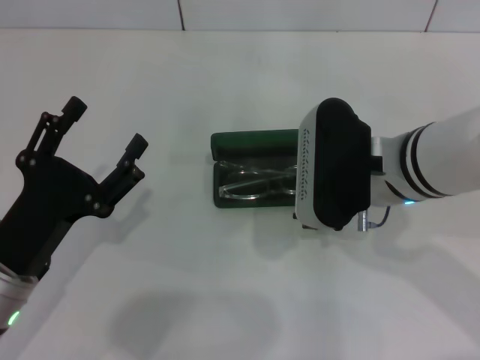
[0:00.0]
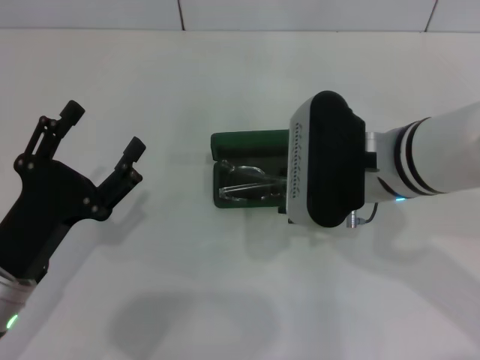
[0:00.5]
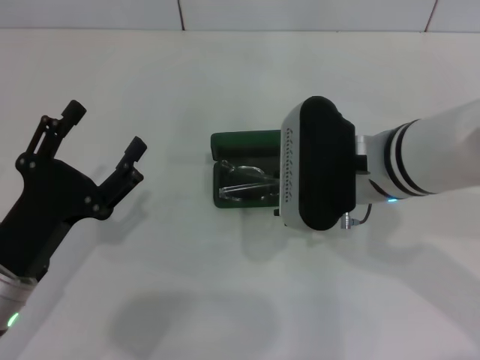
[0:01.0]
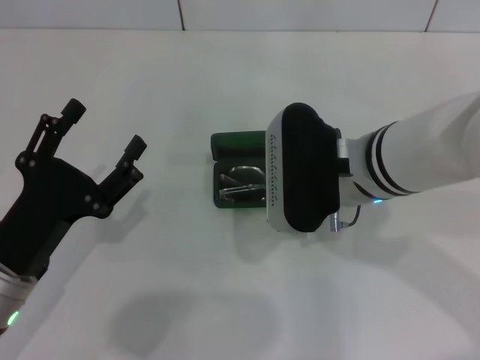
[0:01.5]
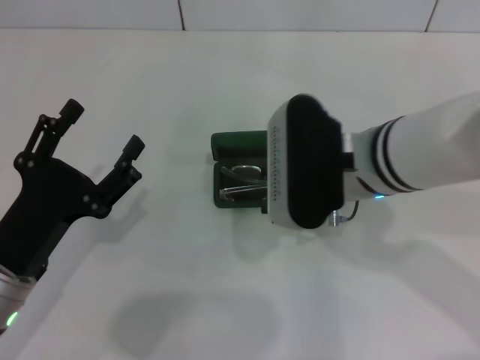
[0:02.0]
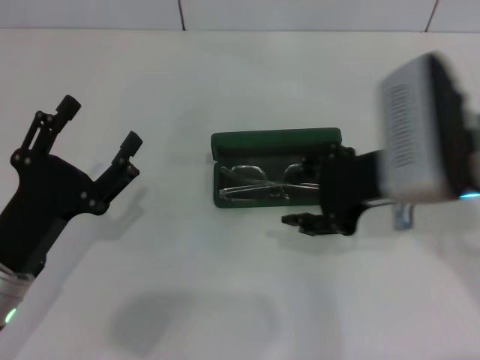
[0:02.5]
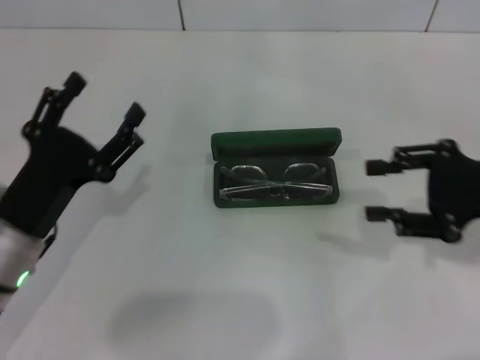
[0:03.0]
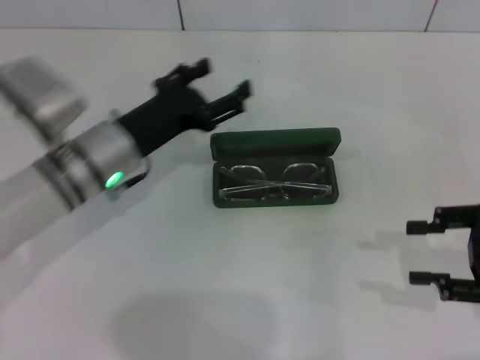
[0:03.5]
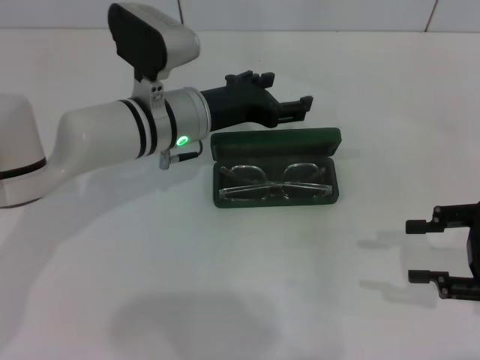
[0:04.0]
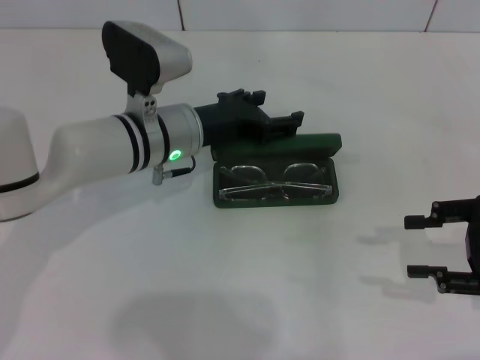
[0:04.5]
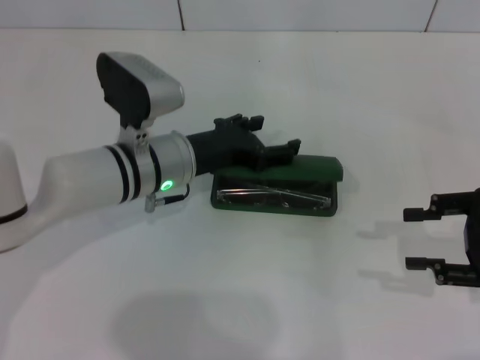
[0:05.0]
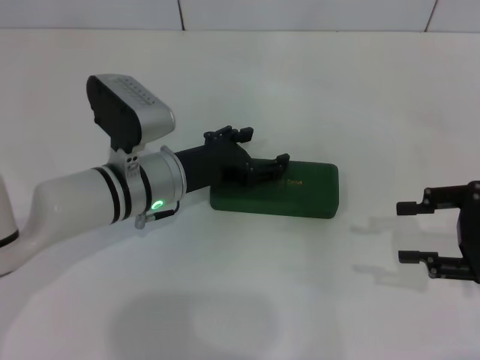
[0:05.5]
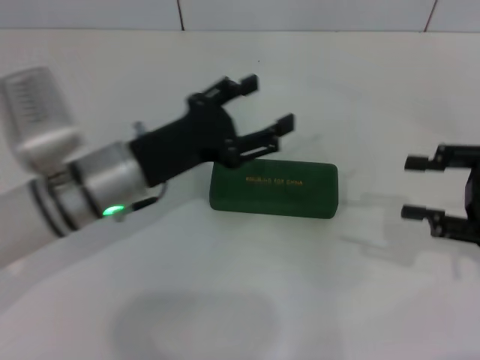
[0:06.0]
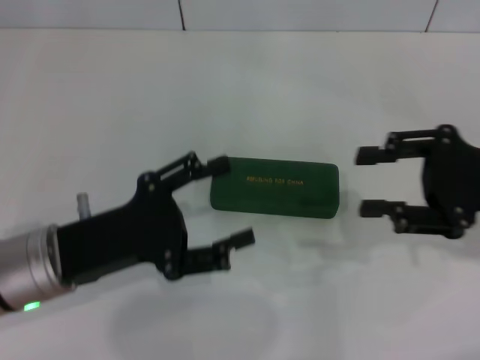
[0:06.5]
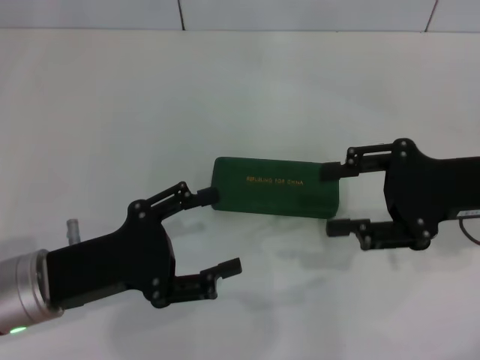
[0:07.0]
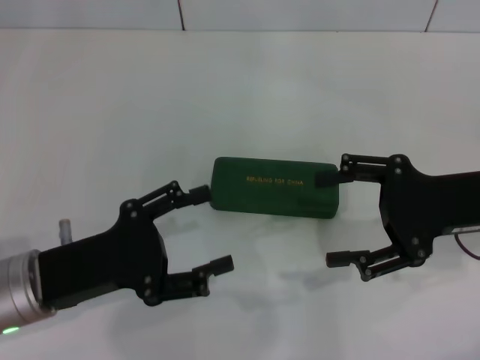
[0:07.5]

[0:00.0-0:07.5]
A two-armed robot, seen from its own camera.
Step, 0.0 to 5.0 s: Close the glasses case with your left hand.
0.0 to 2.0 s: The grippers make only small movements.
2.0 to 4.0 s: The right gripper is displaced to the right by some 25 cm. Meanwhile the left gripper moves forward and to the right, some 25 cm.
4.0 to 5.5 s: The left gripper moves roughly 5 cm.
5.5 to 7.5 s: The left gripper moves backward and to the left, some 15 cm. Meanwhile the right gripper moves to the left, roughly 5 cm, and opens up.

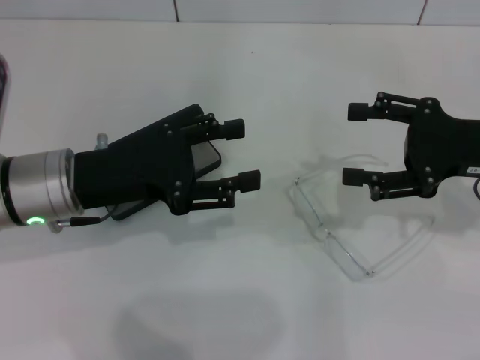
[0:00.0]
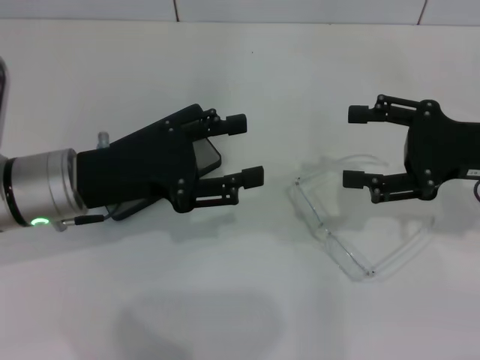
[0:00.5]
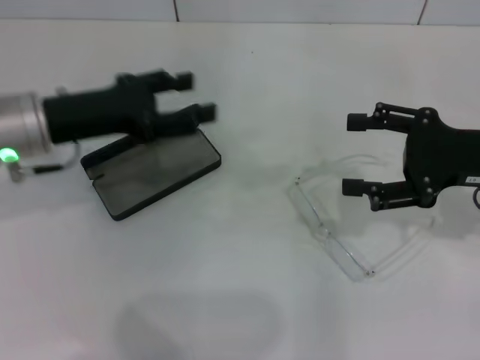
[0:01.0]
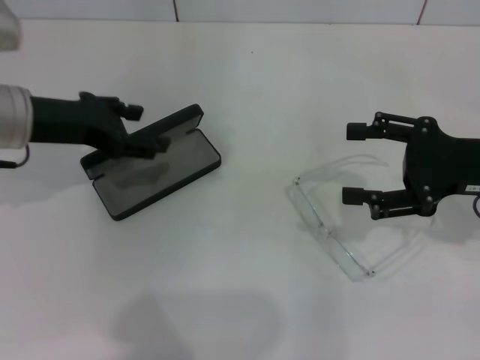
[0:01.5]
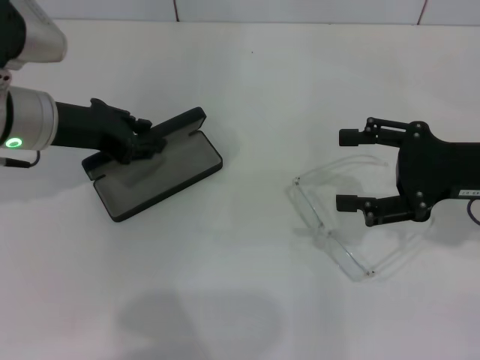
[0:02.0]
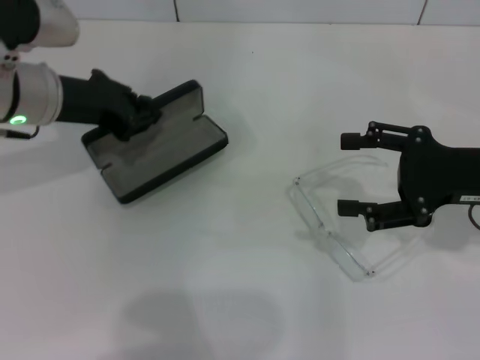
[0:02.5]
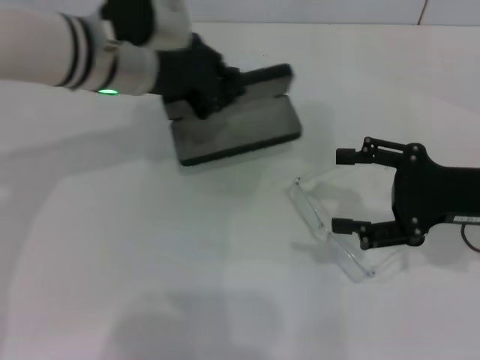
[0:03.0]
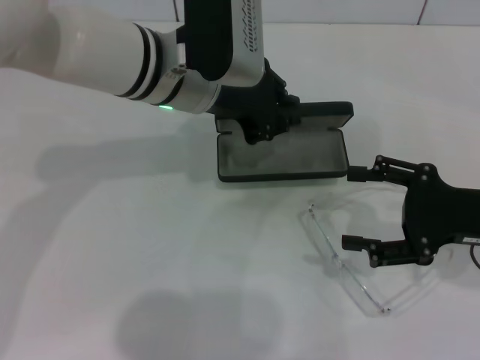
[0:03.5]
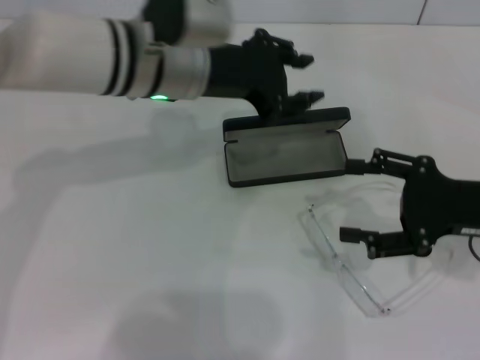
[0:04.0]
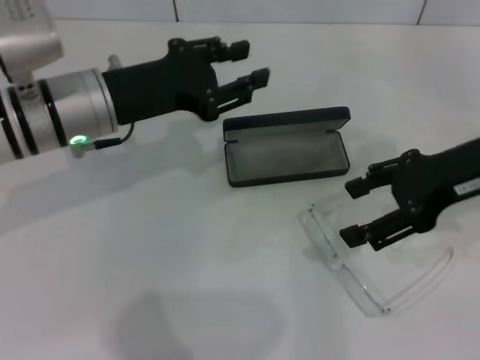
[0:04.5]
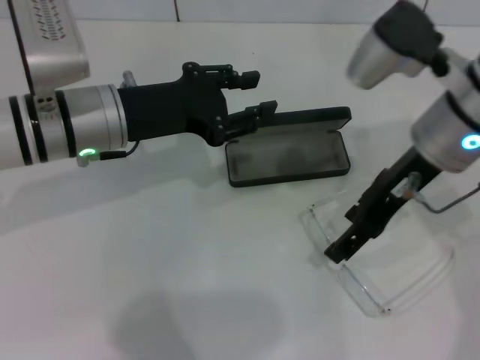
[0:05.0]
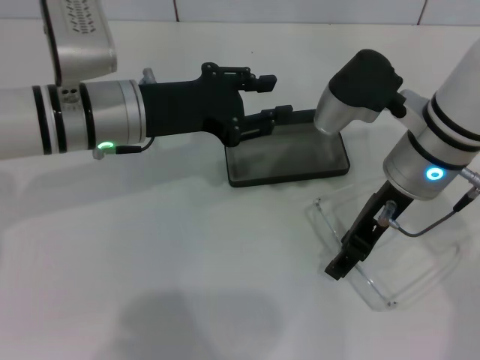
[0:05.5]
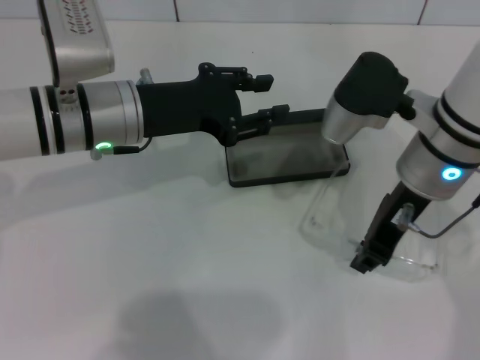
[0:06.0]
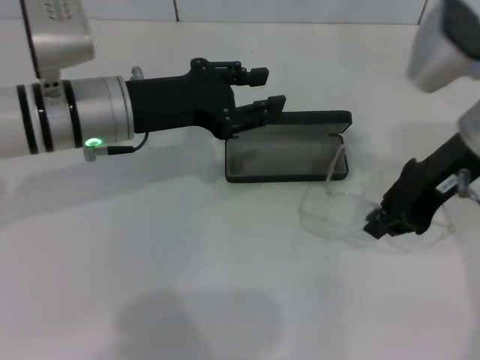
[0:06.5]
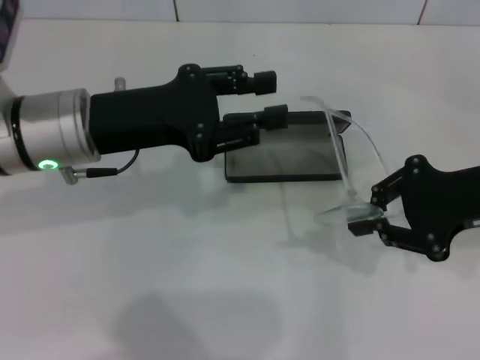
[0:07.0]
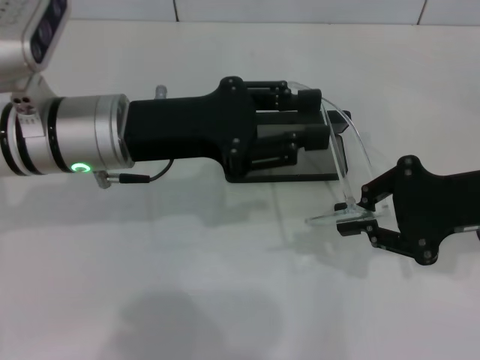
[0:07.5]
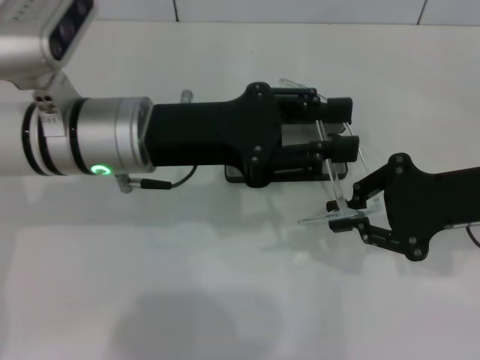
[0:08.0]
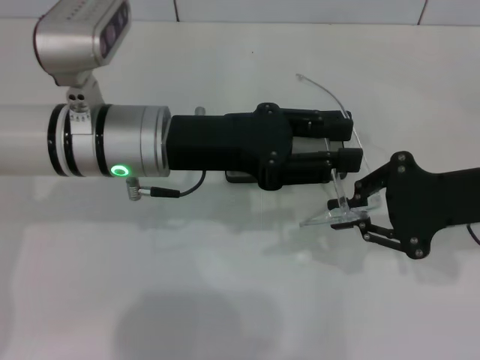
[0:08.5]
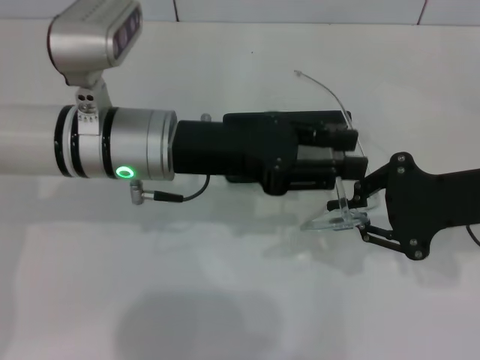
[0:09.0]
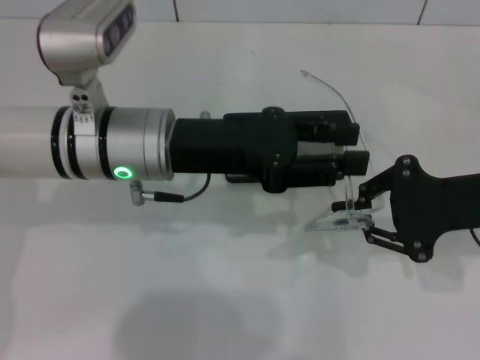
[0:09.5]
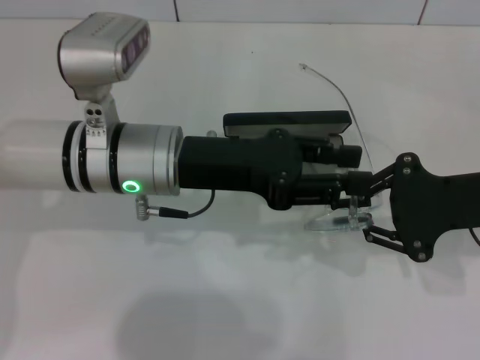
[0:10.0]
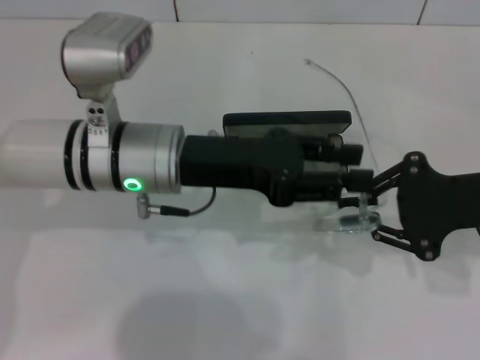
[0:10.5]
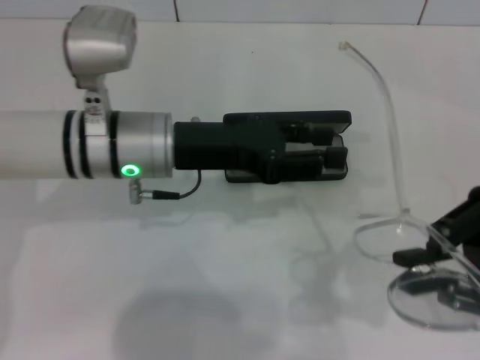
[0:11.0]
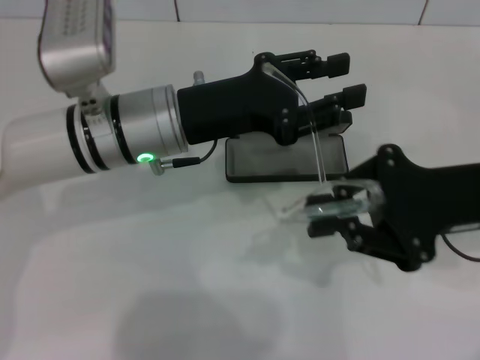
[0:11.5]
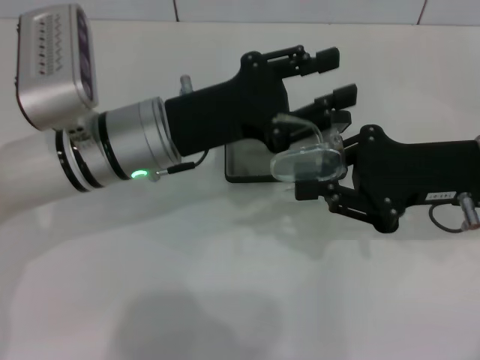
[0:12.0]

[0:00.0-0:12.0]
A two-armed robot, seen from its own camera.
Step, 0.0 to 2.0 s: Grab the glasses case with your left hand.
Step, 2.5 to 4.0 s: Place the glasses case in the center of the table with your left hand.
Step, 4.5 to 5.5 s: Grab the eyeglass frame with your right hand.
0.0 to 2.0 s: The left gripper goes about 5 cm forward, and closes.
2.0 to 4.0 s: The left gripper shifts approximately 15 cm to the right.
4.0 to 6.0 s: The right gripper goes about 15 cm to the left, forward and upward, and closes; the left gripper goes approximately 5 cm to the left.
6.0 to 8.0 s: The right gripper heads to the right, covering approximately 10 cm.

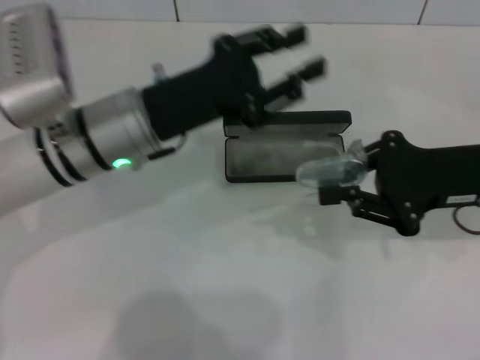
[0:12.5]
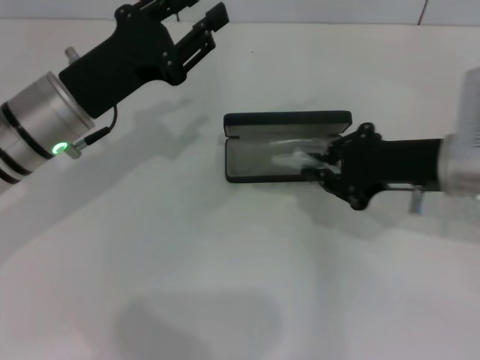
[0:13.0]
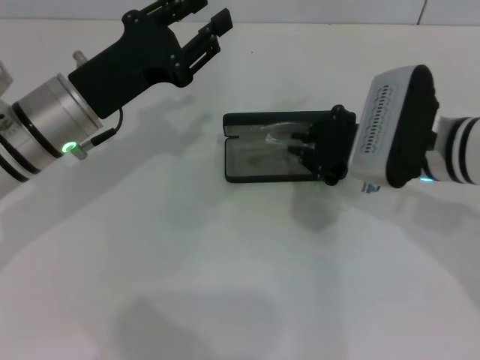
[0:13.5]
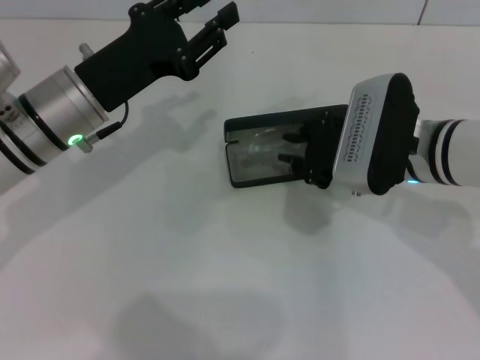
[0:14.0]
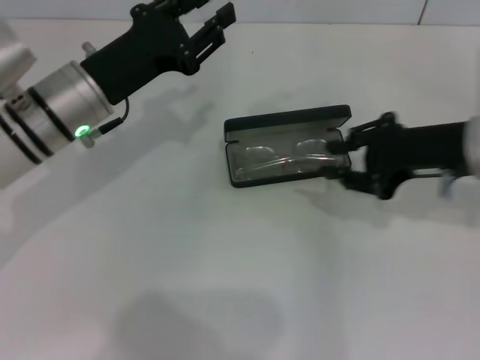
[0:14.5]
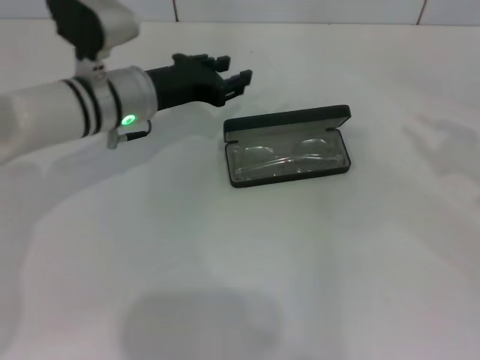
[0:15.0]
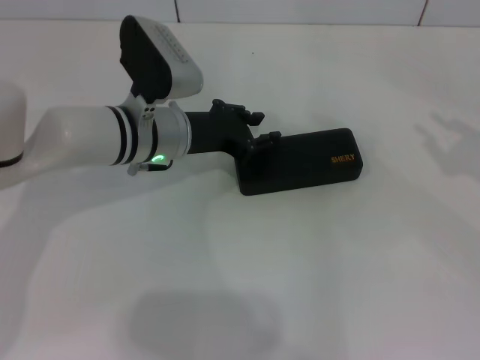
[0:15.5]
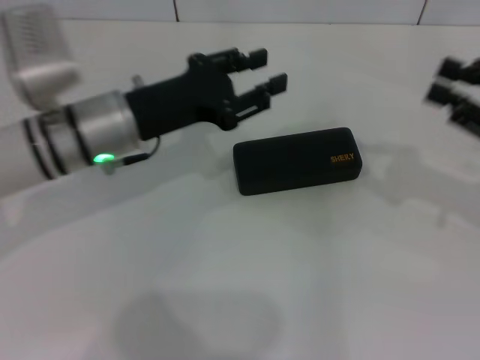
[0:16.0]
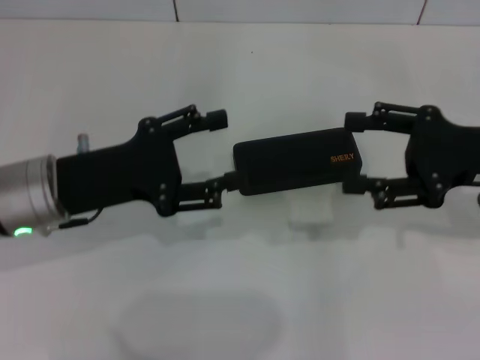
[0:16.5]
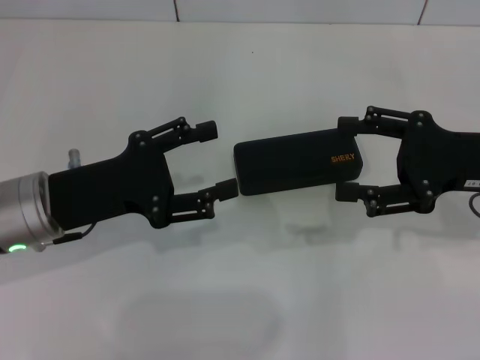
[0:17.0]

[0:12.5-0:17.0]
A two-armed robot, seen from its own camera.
Step, 12.5 to 14.0 s: Put the glasses into the case with your right hand.
Step, 14.5 to 15.5 s: Close the glasses case with your left hand.
12.5 to 14.5 s: The left gripper ends up about 5 cm from where it was. The right gripper travels to the left and back again, approximately 10 cm each way.
14.5 to 17.0 s: The right gripper moves about 15 cm to the right and comes back, and opens, while the left gripper travels backward by roughly 10 cm, and opens its fingers.

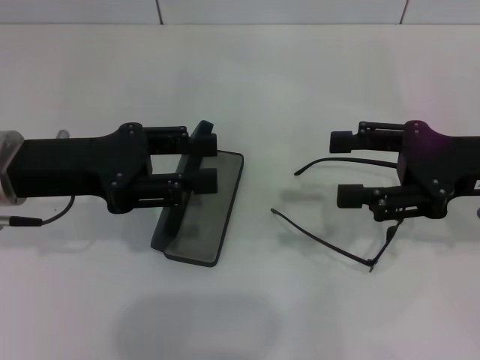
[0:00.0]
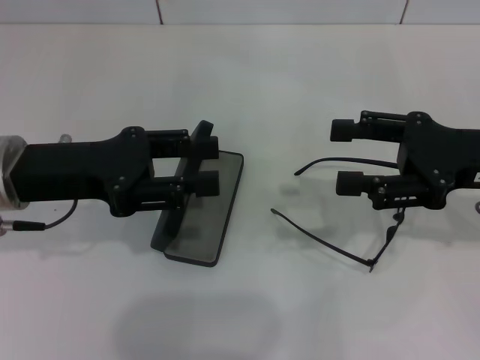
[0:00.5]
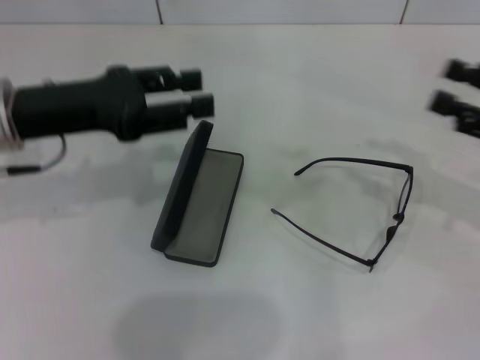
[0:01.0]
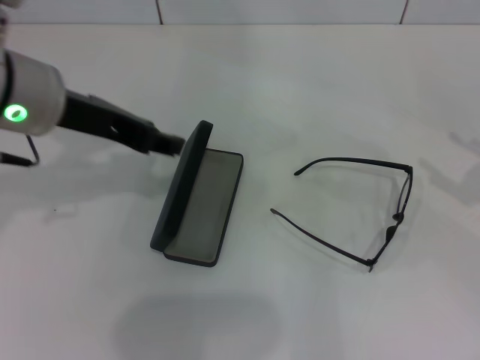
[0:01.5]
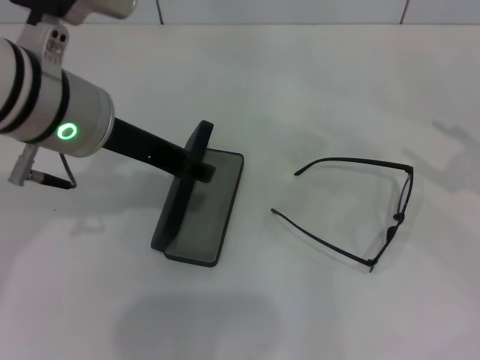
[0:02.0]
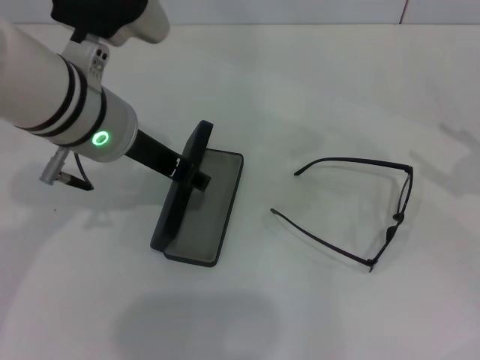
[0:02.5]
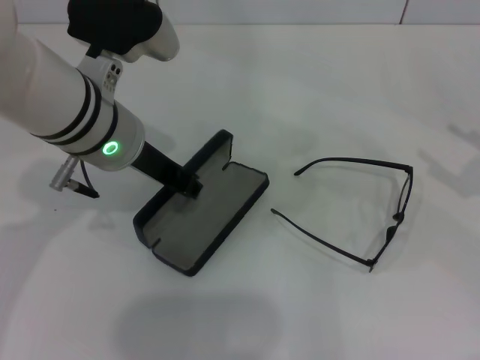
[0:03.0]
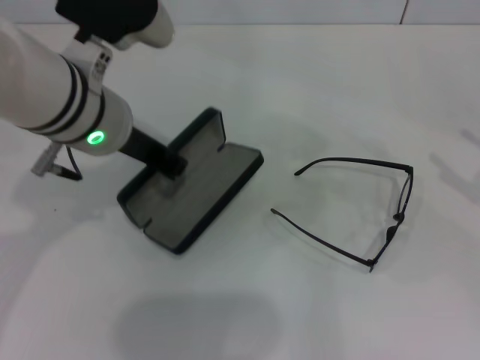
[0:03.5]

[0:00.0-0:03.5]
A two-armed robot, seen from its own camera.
Step, 0.0 to 3.0 s: Grab the glasses case with your left hand.
0.0 to 2.0 s: The left gripper is displaced to the right and upward by roughly 10 cm. Meanwhile the right gripper goes approximately 10 cm to the right.
2.0 to 3.5 s: The left gripper closes its fingers.
